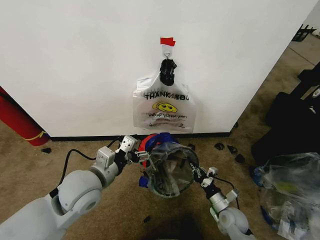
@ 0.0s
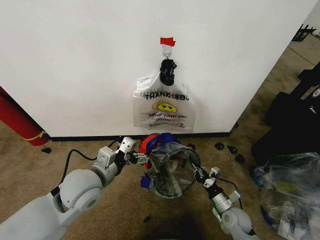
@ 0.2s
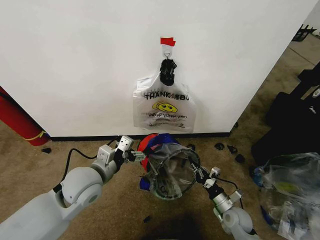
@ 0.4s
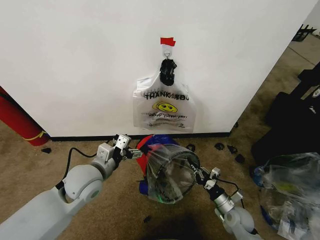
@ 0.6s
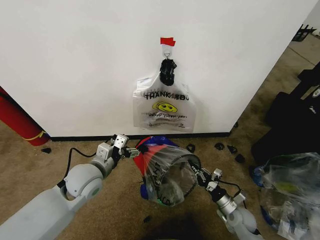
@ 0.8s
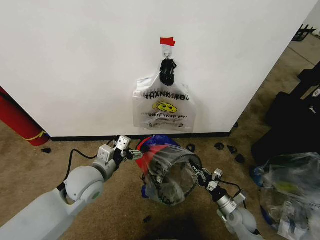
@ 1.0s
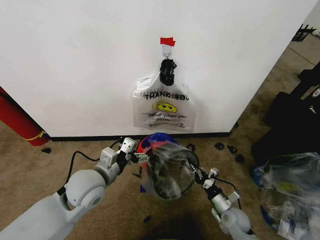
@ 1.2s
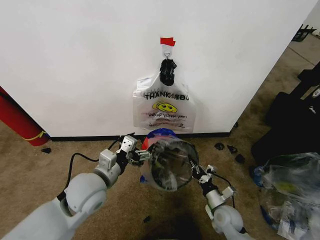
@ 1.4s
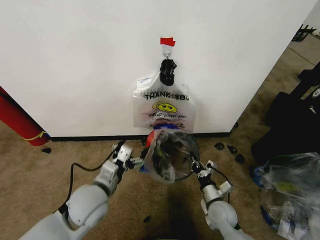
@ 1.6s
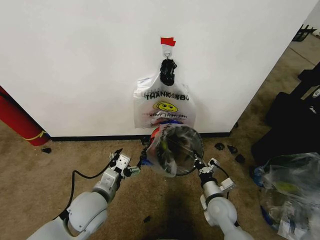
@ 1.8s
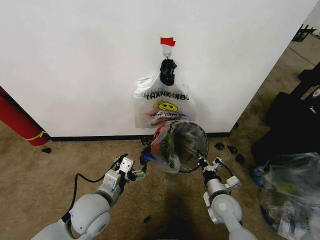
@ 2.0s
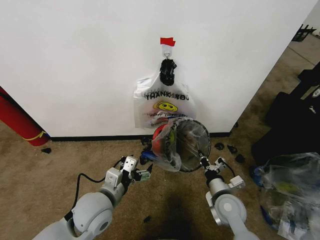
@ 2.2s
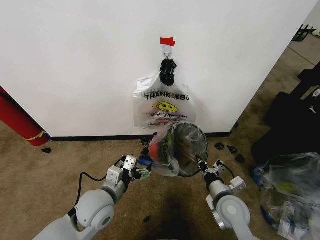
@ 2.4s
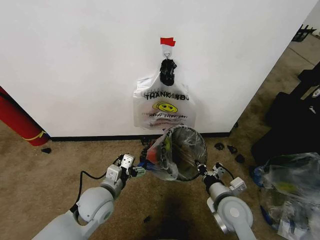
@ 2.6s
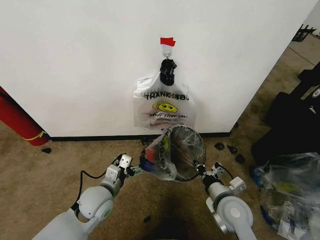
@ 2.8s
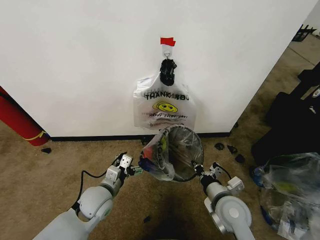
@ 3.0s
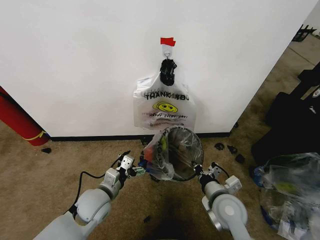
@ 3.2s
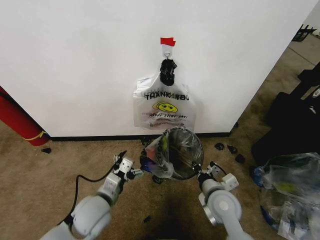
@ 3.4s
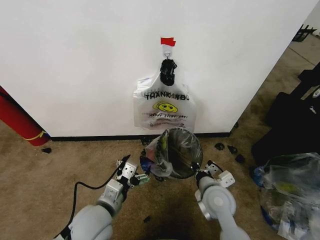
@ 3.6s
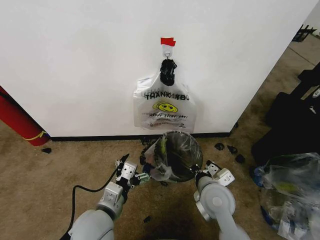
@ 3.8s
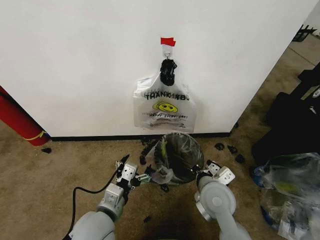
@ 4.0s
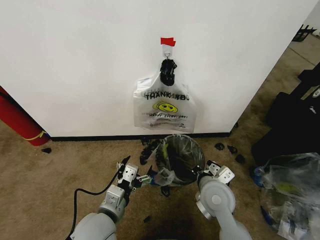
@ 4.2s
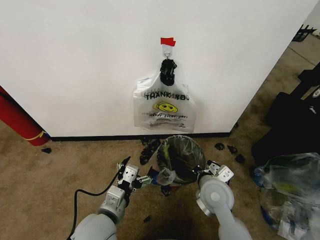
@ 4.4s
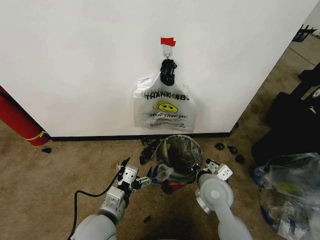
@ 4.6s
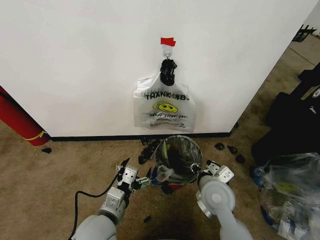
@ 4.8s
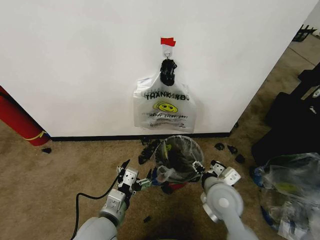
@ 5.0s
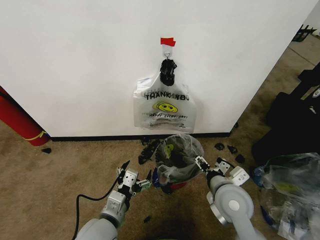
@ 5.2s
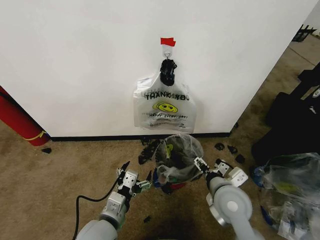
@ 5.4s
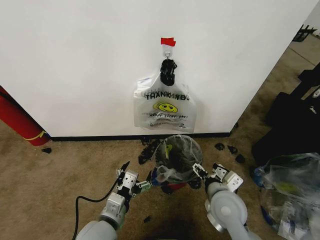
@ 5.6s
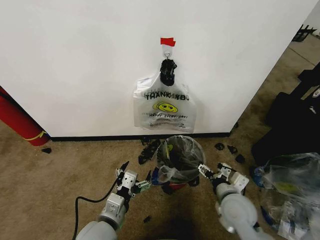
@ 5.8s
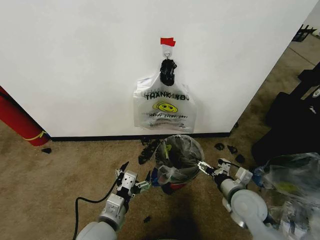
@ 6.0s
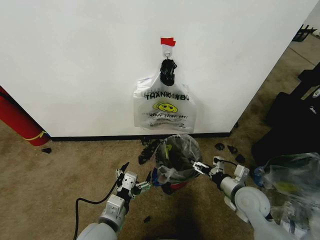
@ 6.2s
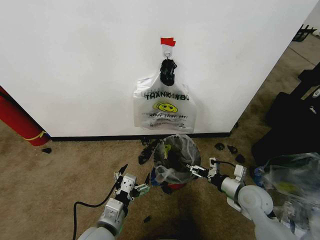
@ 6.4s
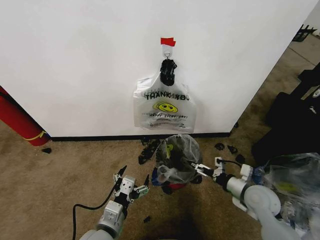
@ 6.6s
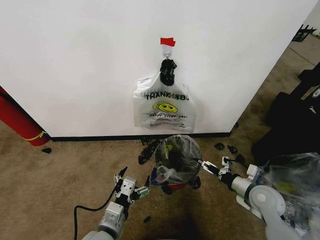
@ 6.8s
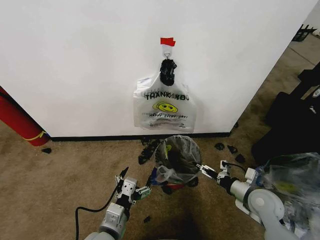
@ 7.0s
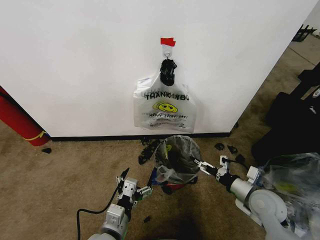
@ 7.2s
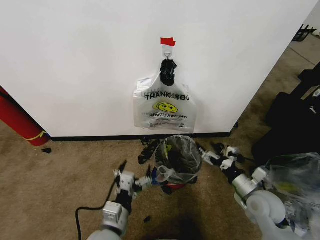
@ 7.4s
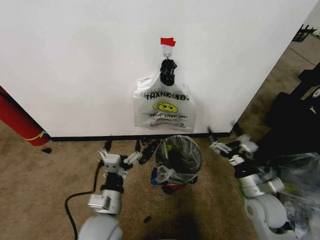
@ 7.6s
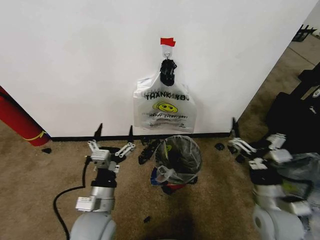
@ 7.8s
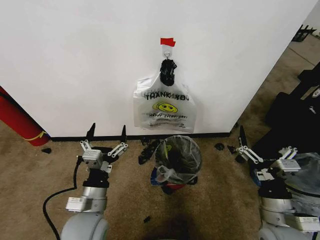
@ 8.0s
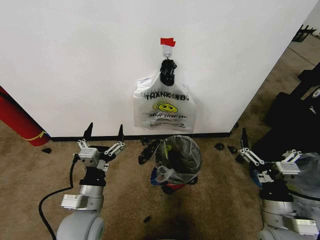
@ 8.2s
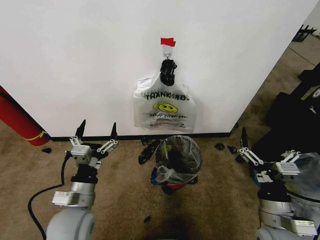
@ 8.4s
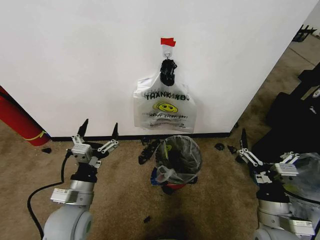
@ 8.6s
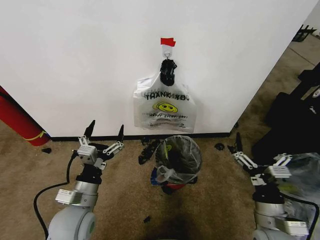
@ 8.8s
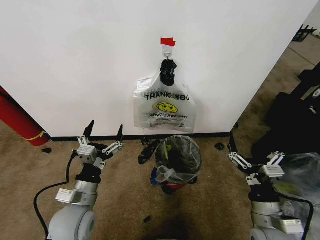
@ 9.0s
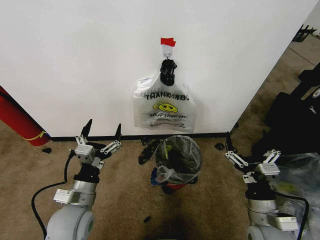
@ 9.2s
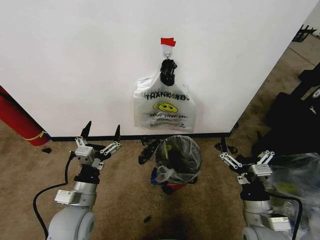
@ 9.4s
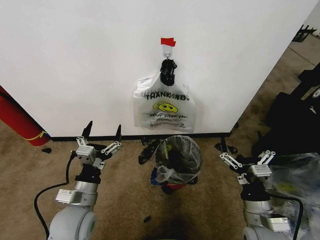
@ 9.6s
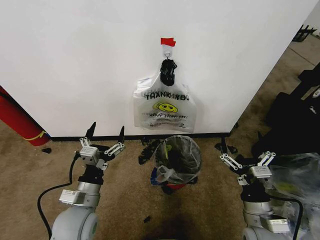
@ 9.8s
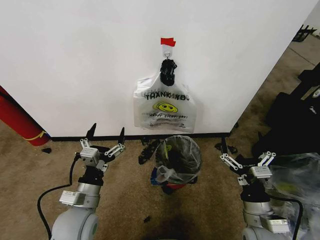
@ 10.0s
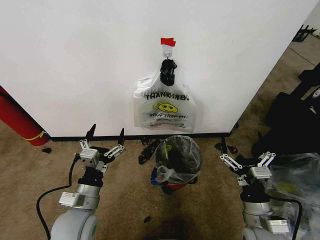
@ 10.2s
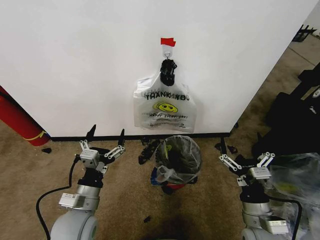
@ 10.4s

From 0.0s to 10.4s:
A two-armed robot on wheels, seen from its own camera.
Task of the whole recording: Pick up the garbage bag from the wall and place it over the trash bin.
From 1.4s to 3.0s: The left gripper heads downward, covering roughly 10 cm. Meanwhile the right gripper shifts approximately 15 cm upward.
From 3.0s to 4.4s: The right gripper moves approximately 5 cm. The left gripper goes approximately 10 cm backward and upward.
From 4.4s to 6.0s: The right gripper goes approximately 10 cm to the right, and opens its fingers.
From 7.4s to 9.0s: The right gripper shifts roughly 10 cm backward; the left gripper shifts approximately 10 cm to the left and forward.
From 9.0s to 10.4s: The grippers stay close to where they were, moving slightly.

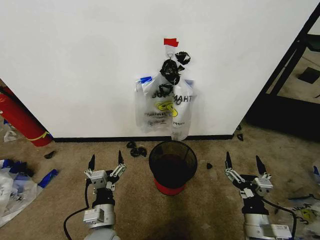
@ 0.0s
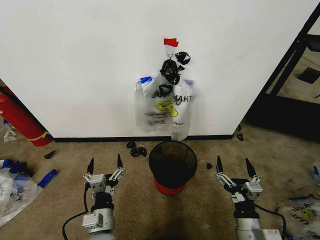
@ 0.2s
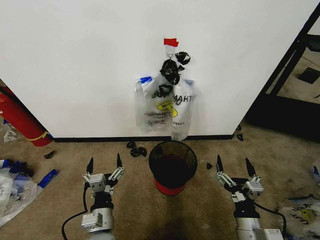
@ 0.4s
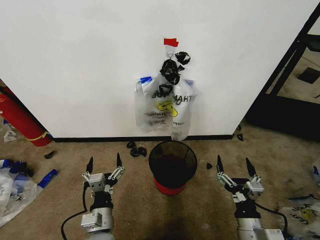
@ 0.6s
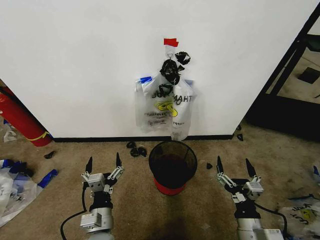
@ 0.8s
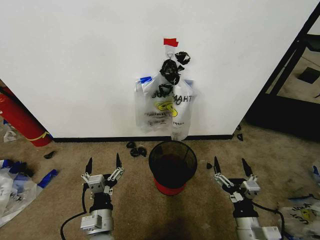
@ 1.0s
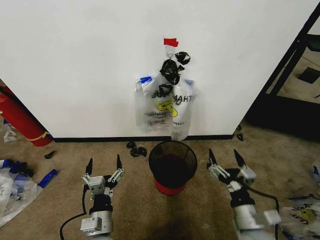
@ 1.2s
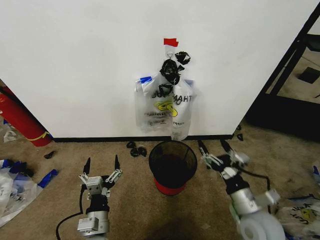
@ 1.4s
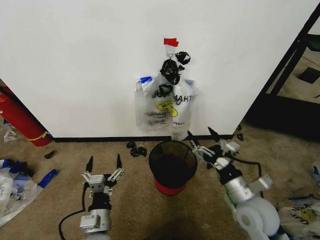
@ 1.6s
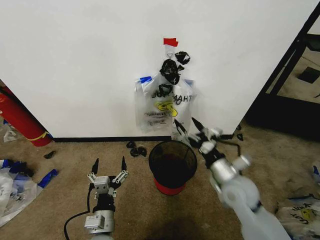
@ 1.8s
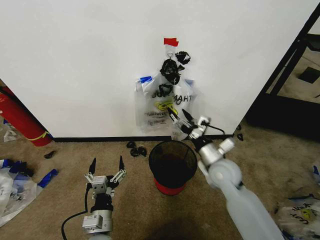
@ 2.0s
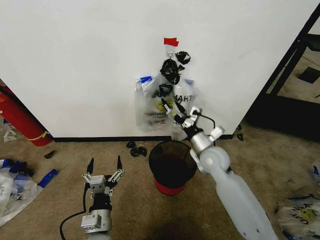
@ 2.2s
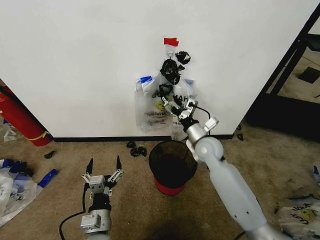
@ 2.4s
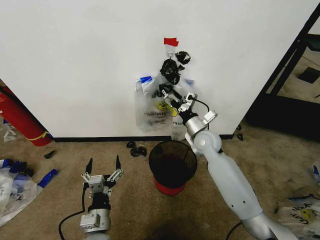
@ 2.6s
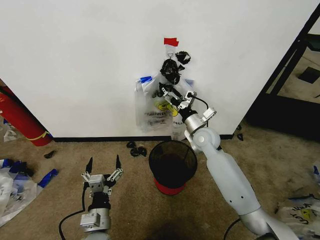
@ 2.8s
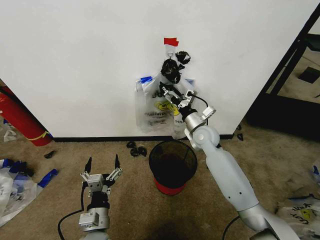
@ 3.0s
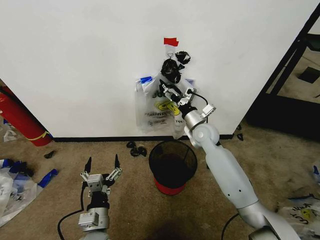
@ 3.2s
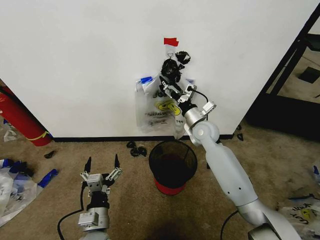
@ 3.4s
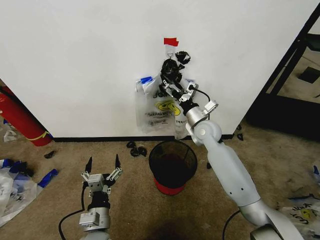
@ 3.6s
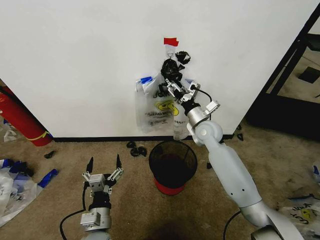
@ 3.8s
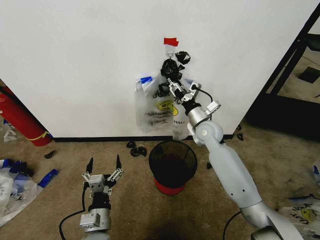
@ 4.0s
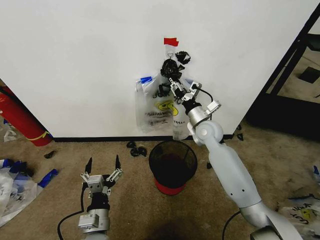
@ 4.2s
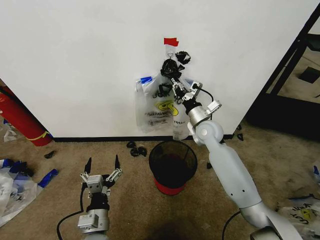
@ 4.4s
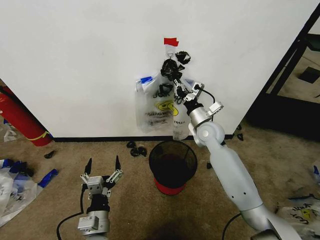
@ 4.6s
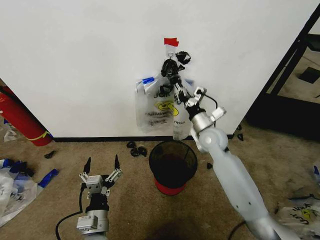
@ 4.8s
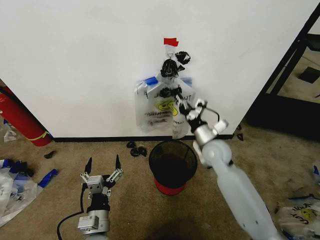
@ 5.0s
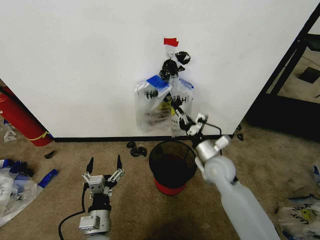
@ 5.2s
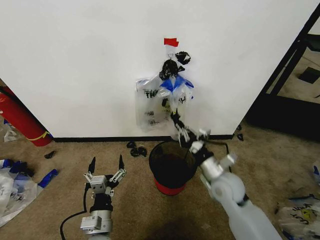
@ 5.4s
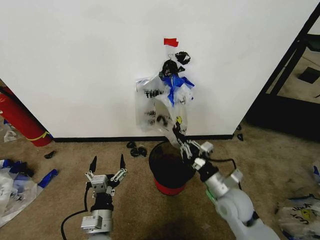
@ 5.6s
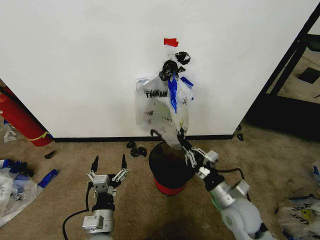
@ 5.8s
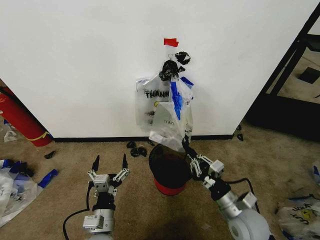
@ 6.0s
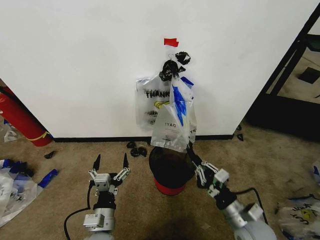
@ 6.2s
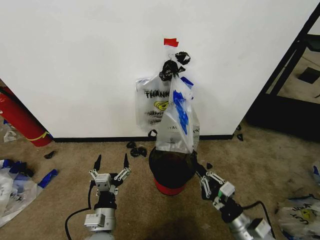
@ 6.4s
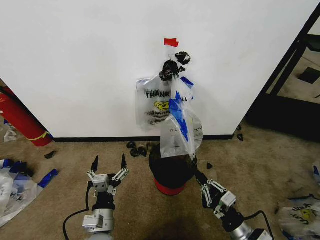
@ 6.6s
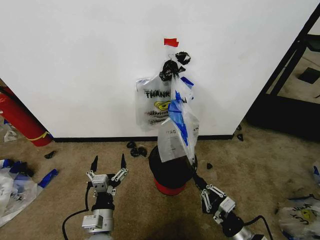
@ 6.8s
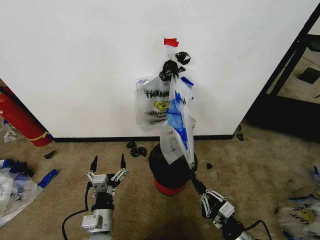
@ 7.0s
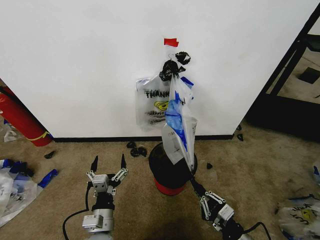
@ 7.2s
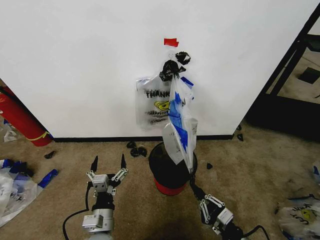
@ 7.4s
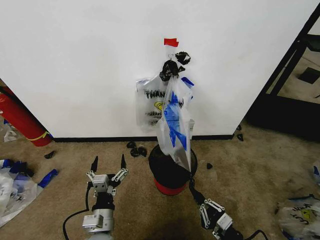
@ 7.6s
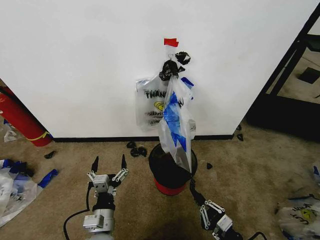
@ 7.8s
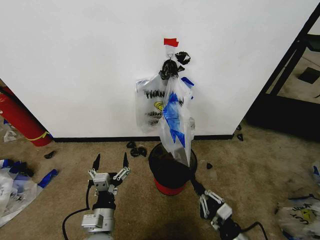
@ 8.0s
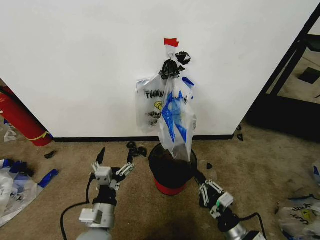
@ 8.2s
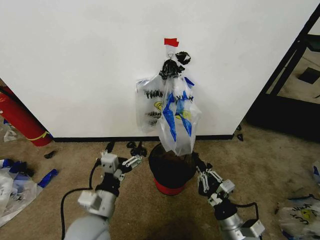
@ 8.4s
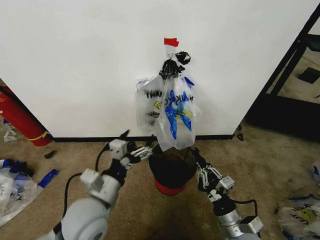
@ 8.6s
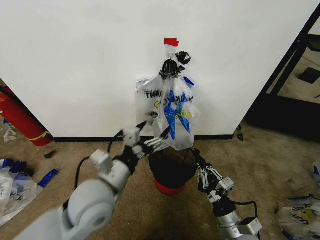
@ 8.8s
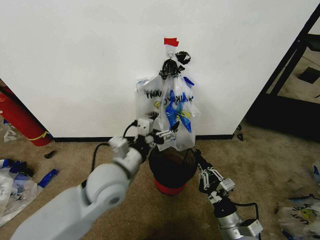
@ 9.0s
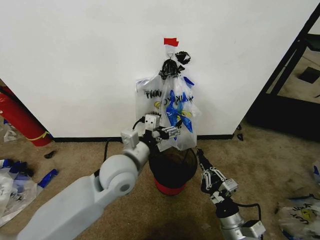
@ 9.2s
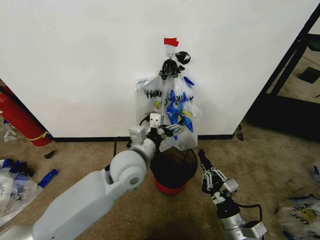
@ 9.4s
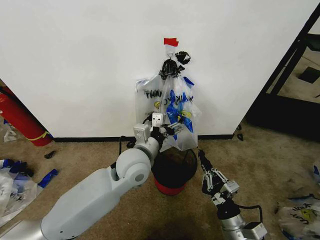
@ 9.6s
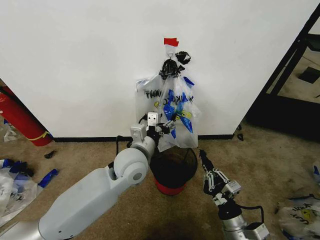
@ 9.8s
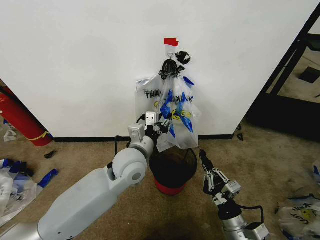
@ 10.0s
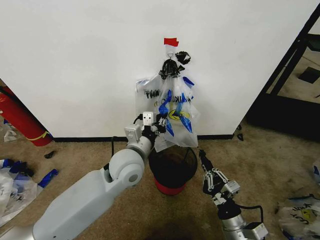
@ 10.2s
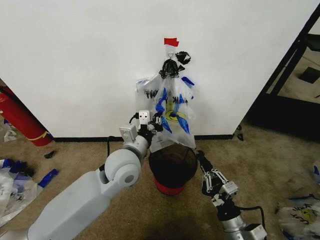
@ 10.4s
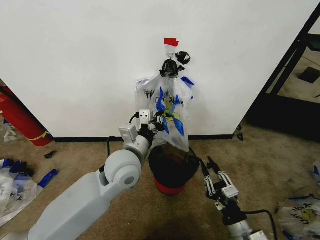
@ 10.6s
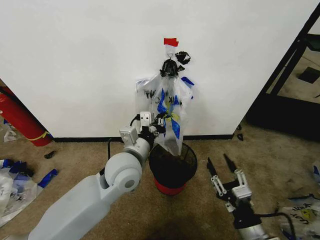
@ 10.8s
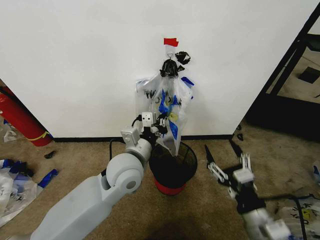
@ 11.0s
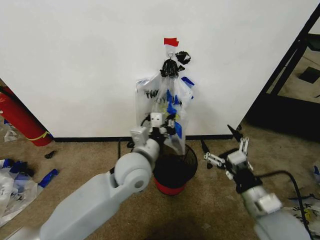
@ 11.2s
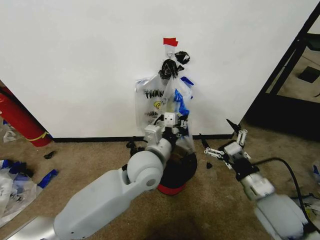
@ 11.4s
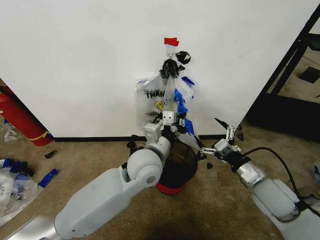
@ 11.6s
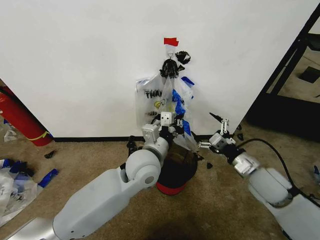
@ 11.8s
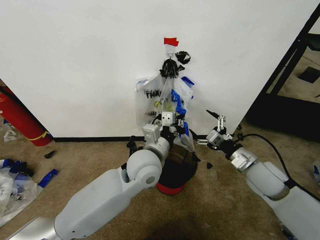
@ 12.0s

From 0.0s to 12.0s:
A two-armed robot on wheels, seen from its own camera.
Task of the whole recording: Pick up the garbage bag from the wall and place it over the trash bin.
From 1.6s to 3.0s: The right gripper shifts roughly 25 cm forward.
From 3.0s to 4.4s: The right gripper closes its fingers.
From 4.4s to 6.0s: The right gripper heads backward and downward, covering roughly 30 cm.
From 6.0s to 7.6s: The right gripper shifts some 15 cm backward and downward.
From 7.6s to 9.0s: The left gripper goes approximately 20 cm upward and forward. Meanwhile the right gripper shifts some 5 cm upward and forward.
From 9.0s to 10.4s: The left gripper goes about 5 cm forward, and closes up.
From 10.4s to 12.0s: The left gripper is displaced to the right by approximately 5 cm, while the right gripper heads forward, upward and to the right, covering some 20 cm, and opens up.
